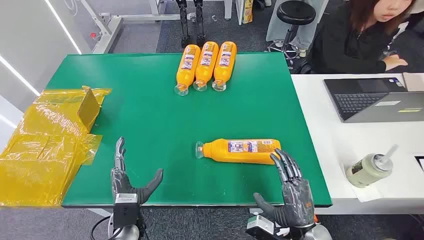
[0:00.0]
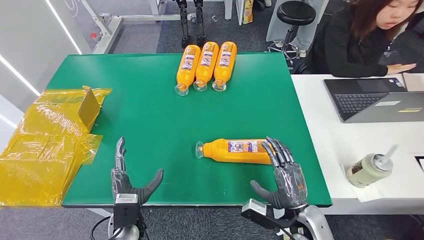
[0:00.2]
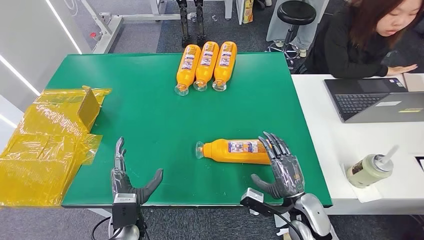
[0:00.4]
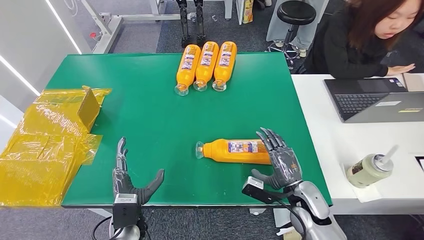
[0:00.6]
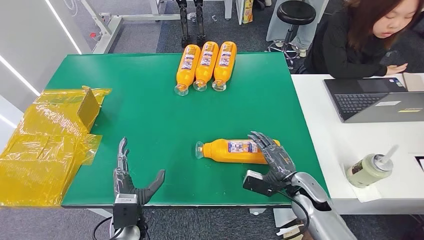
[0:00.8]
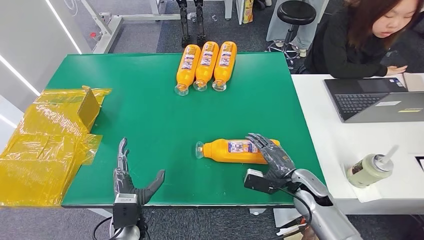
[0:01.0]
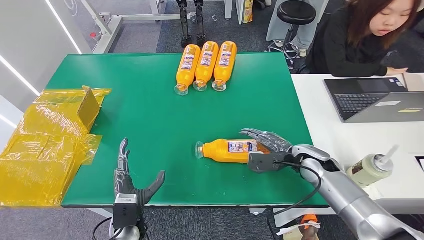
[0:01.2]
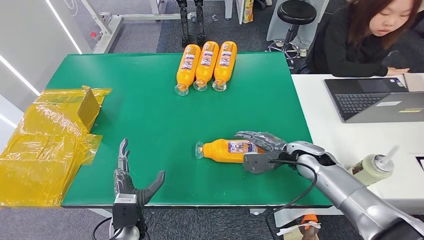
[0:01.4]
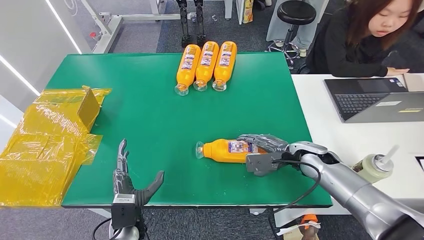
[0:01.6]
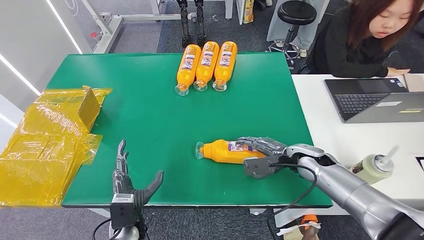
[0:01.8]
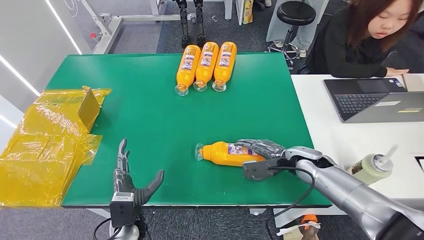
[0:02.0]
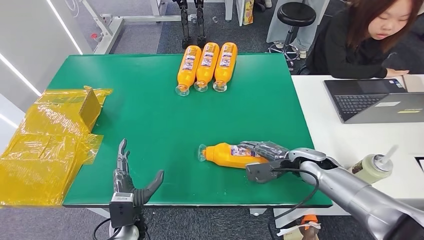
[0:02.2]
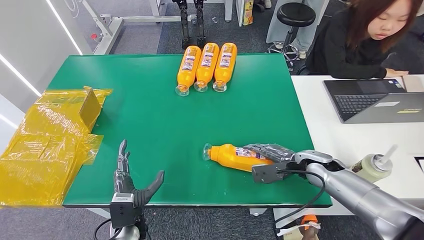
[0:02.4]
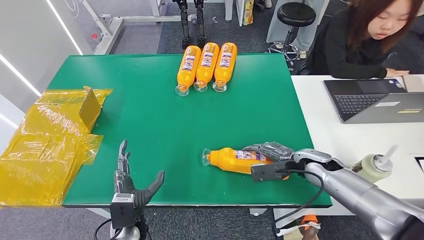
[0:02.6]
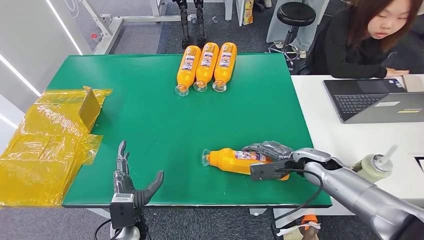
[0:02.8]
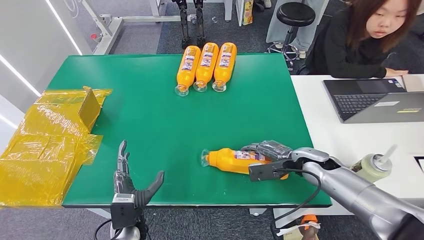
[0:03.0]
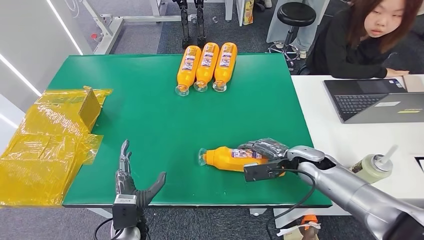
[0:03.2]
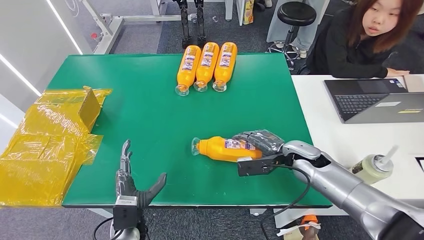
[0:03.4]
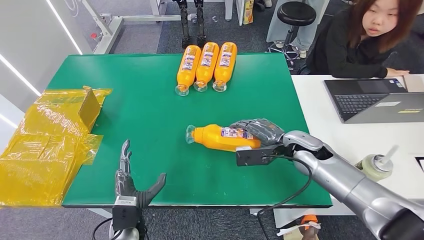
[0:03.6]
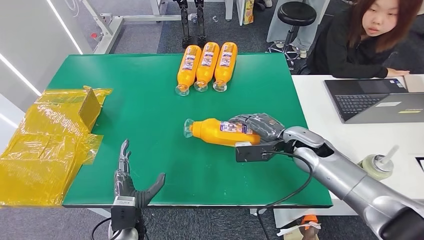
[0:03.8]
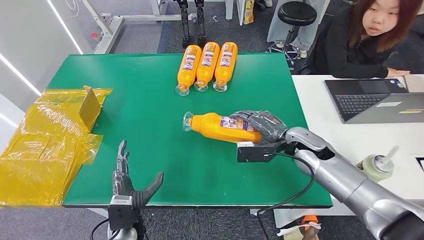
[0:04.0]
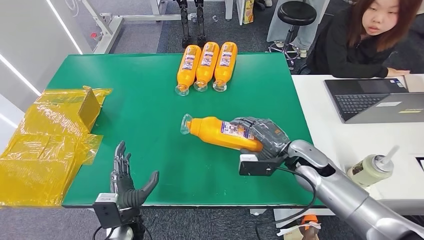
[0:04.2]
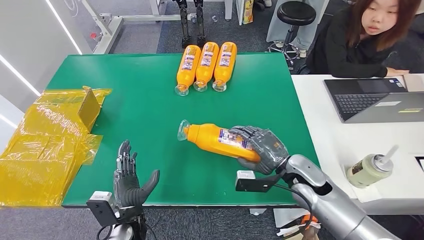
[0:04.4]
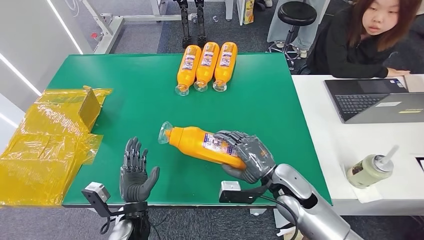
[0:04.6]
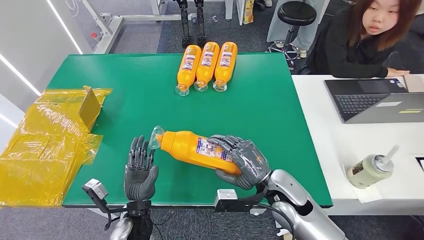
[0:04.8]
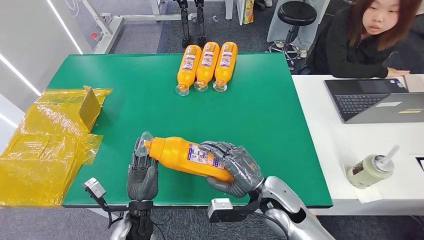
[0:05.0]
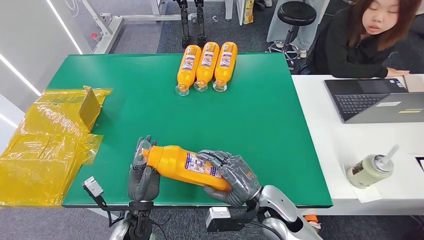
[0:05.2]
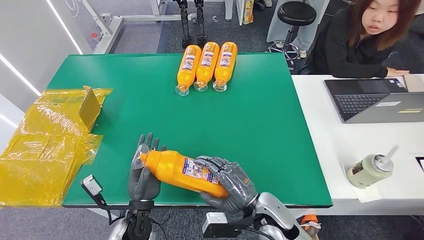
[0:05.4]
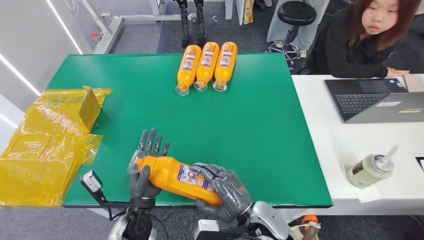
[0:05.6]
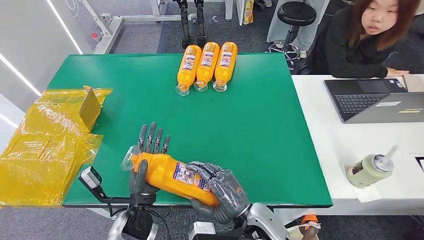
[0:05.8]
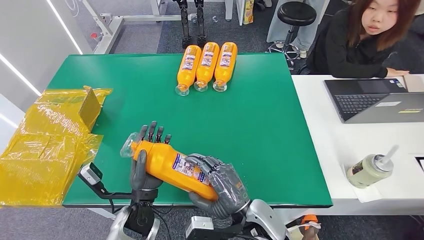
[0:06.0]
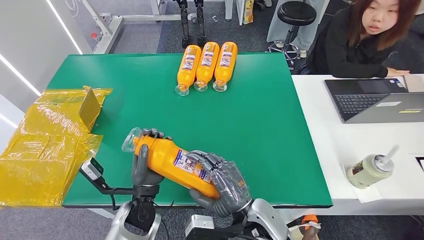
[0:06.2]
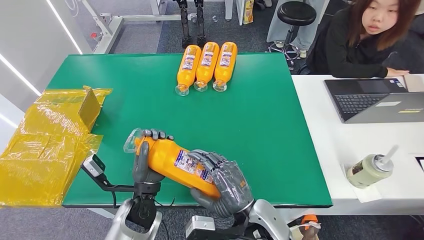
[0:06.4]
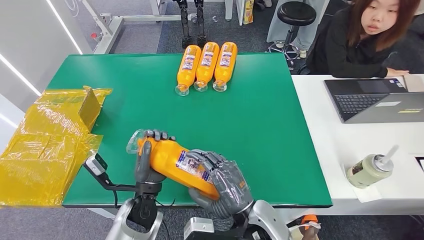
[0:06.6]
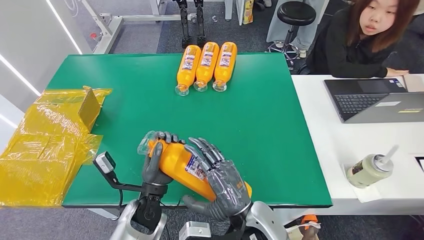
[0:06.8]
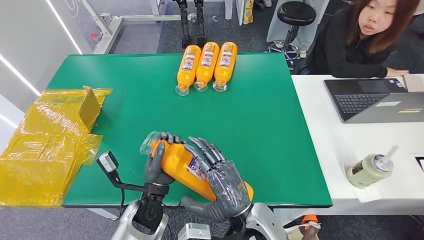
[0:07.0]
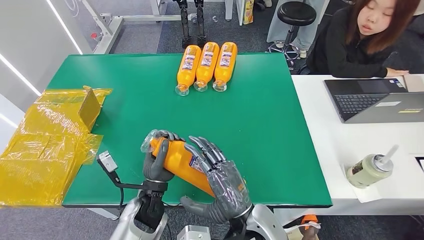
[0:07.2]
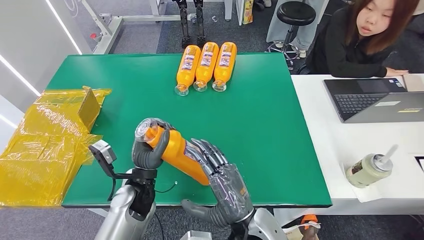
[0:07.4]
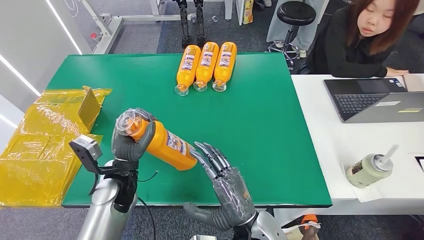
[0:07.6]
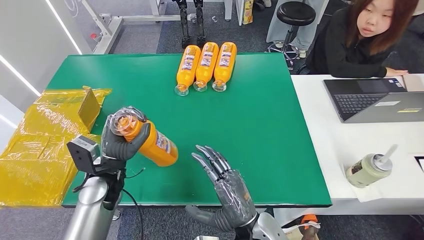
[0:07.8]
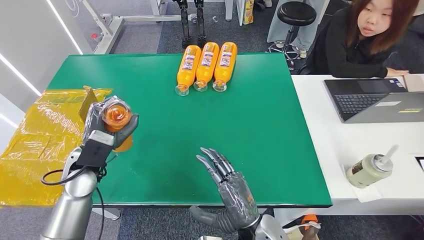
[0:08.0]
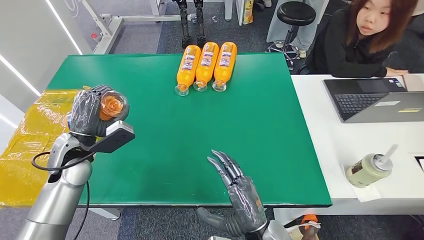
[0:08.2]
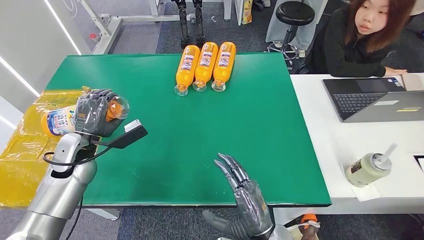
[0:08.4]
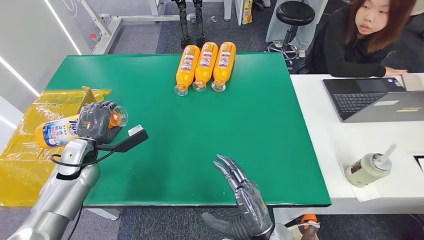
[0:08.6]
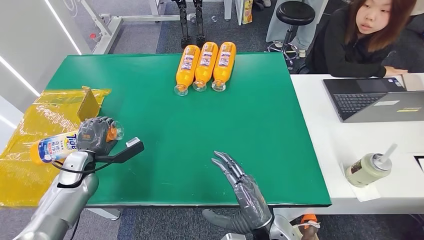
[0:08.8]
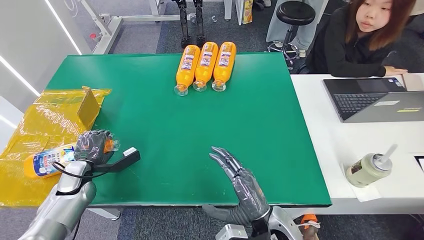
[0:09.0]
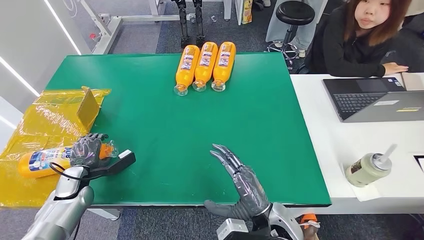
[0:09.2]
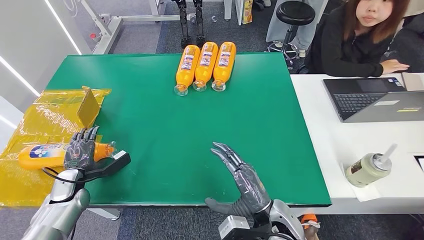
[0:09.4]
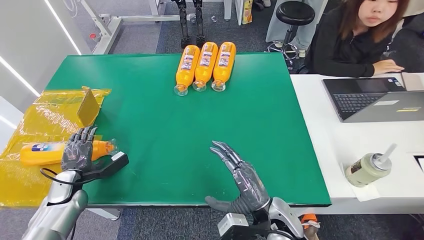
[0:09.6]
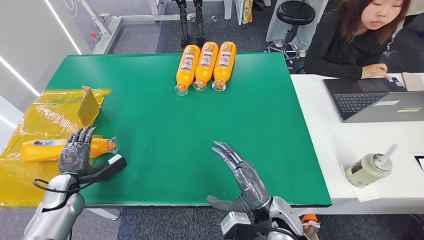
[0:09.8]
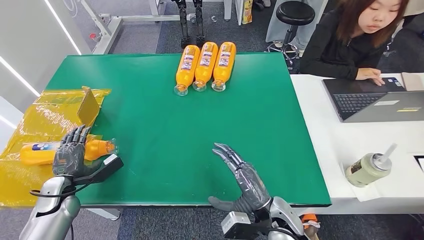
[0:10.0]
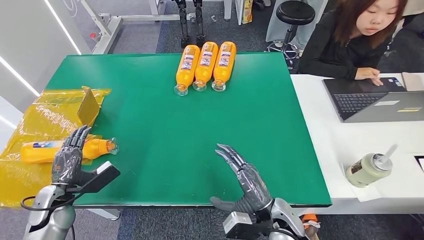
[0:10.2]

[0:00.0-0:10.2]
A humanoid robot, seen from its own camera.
Step, 0:00.0 to 0:04.6: Pick up the bottle from the table.
Step, 0:05.0 to 0:10.2: Turn the bottle to the front side.
0:01.4 to 0:03.0: There are only small adjustments of the hands.
0:03.0 to 0:04.4: The right hand is displaced to the left by some 5 cm.
0:04.4 to 0:05.8: The right hand goes roughly 20 cm to the left and backward; the left hand moves roughly 5 cm.
0:05.8 to 0:07.2: The right hand shifts about 5 cm upward.
0:07.2 to 0:08.8: The right hand heads downward and to the right, covering about 5 cm, while the left hand goes roughly 25 cm to the left.
0:08.8 to 0:10.2: The left hand goes about 10 cm backward. Meanwhile the right hand shifts by about 5 cm.
